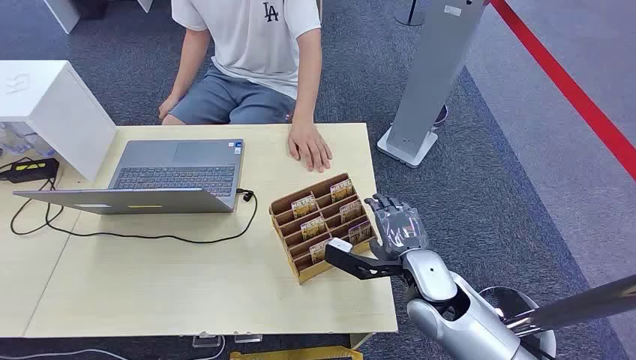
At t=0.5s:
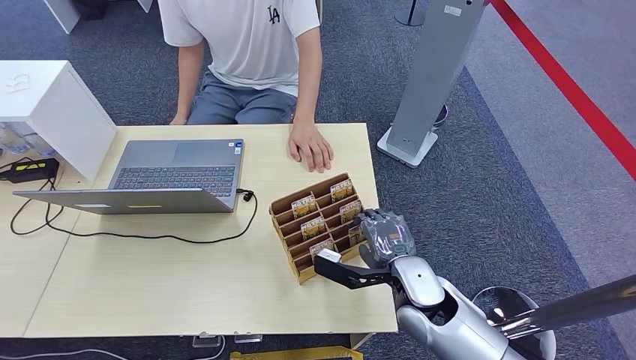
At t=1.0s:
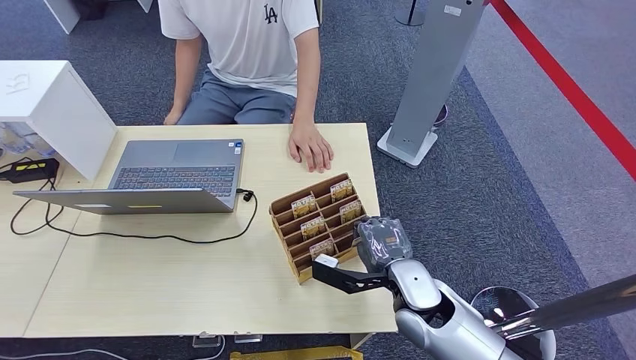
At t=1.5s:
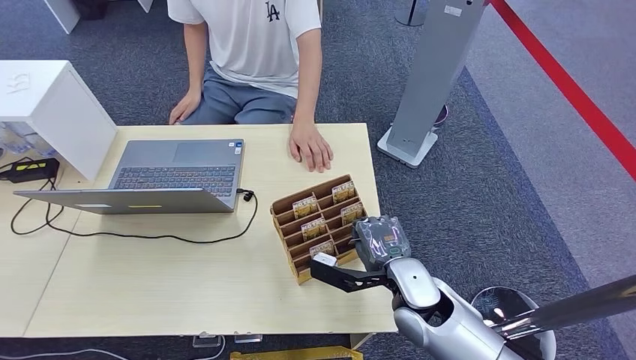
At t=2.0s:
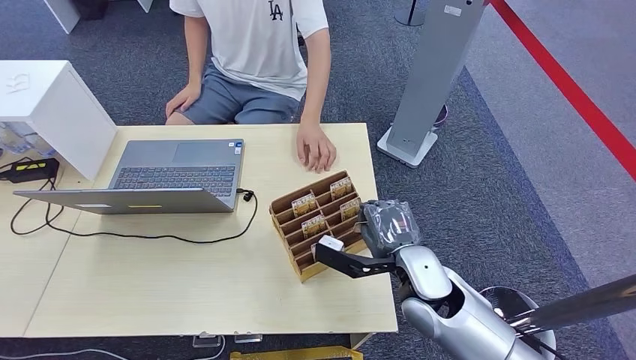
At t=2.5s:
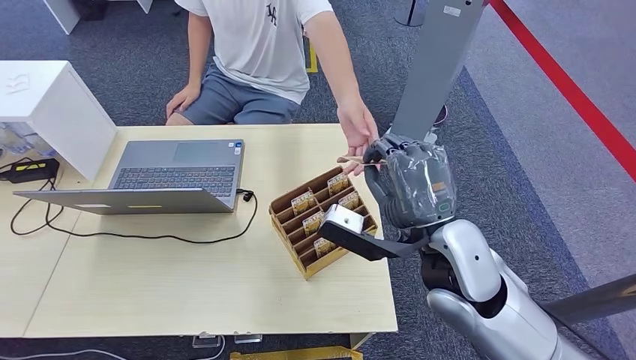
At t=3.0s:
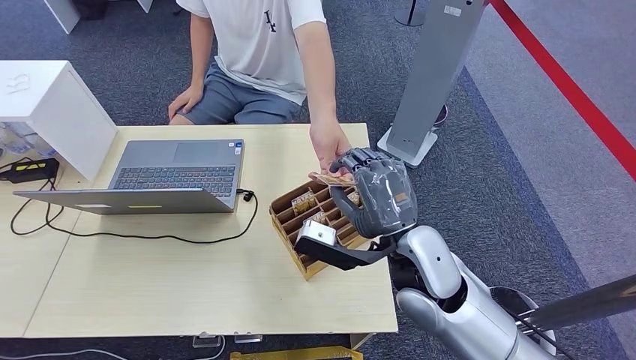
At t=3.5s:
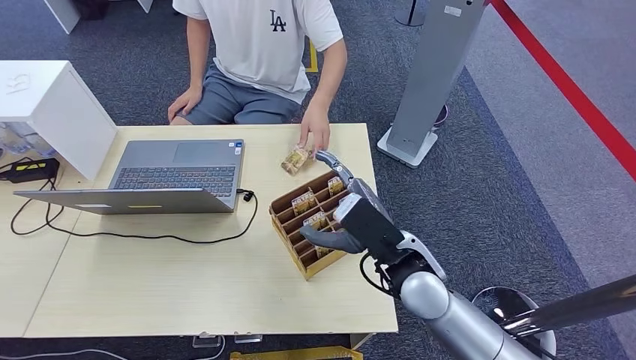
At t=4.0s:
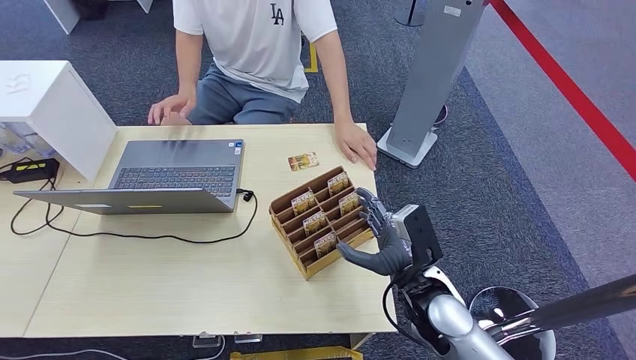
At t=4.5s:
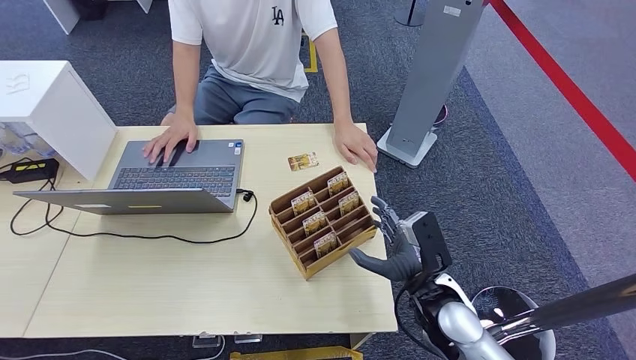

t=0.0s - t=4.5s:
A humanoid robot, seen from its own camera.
Step, t=0.0s - t=2.0s: Pick up the room card from the card holder.
Step, t=2.5s - t=4.5s: Hand the room card to the target.
t=2.0s - t=4.5s: The right hand travels upward and back again, roughly 10 cm each way.

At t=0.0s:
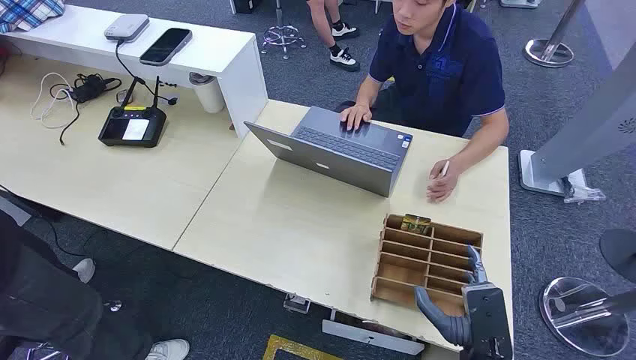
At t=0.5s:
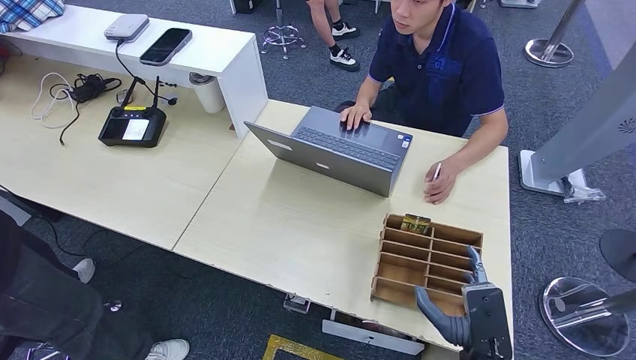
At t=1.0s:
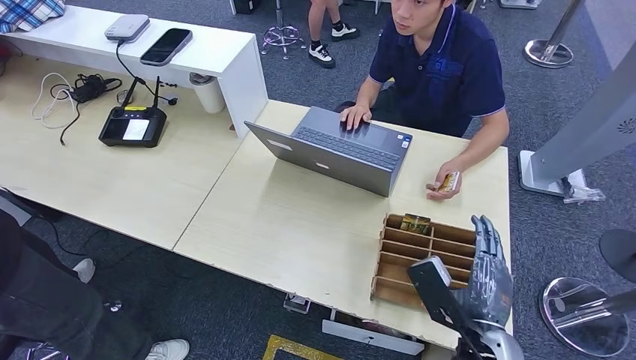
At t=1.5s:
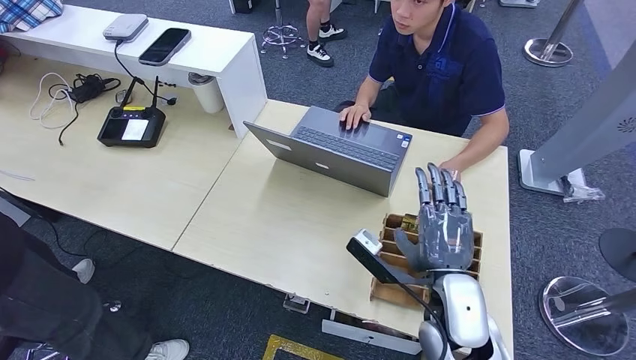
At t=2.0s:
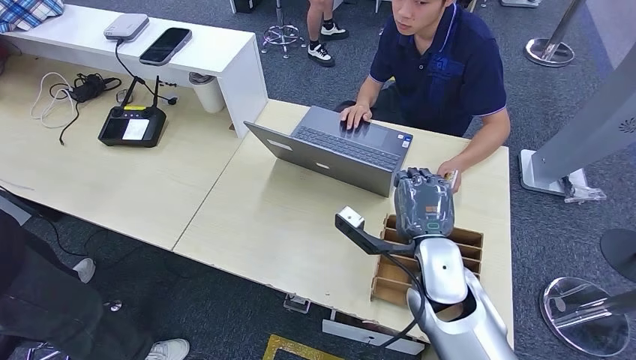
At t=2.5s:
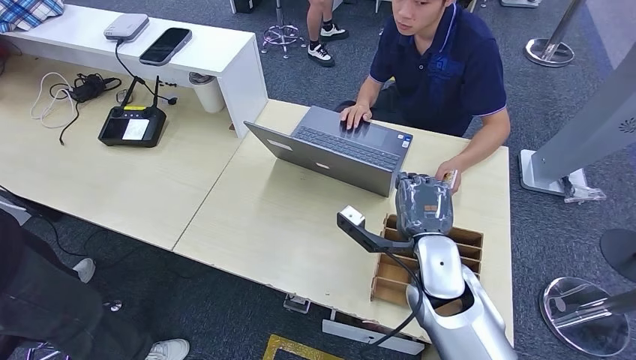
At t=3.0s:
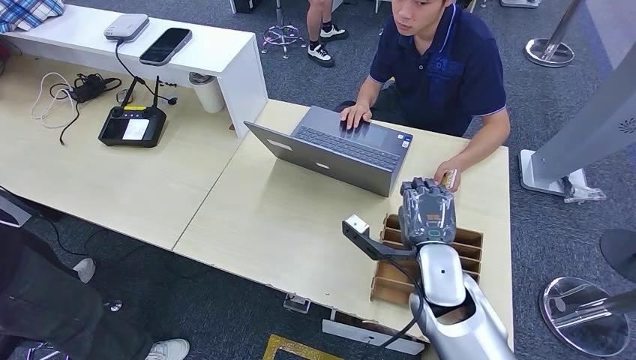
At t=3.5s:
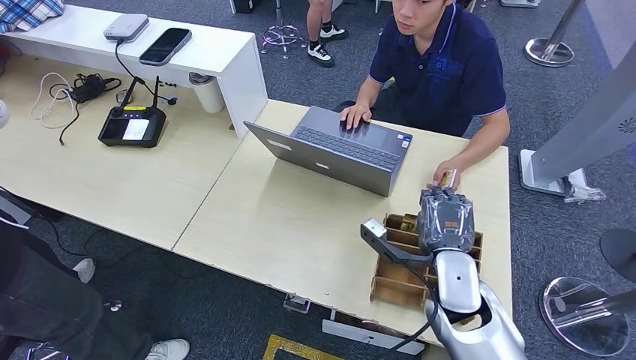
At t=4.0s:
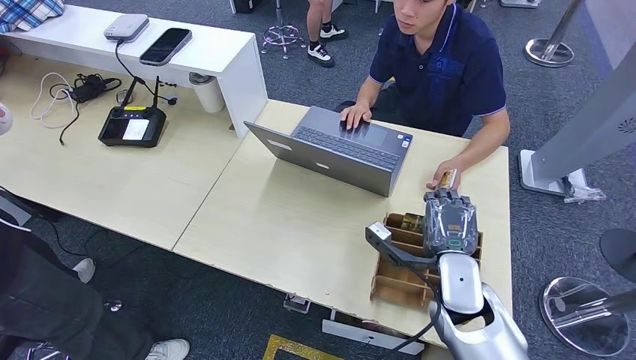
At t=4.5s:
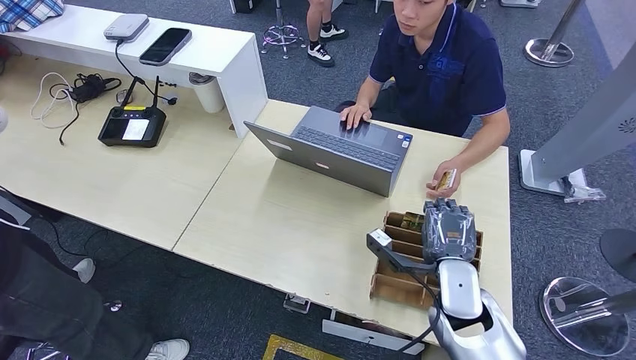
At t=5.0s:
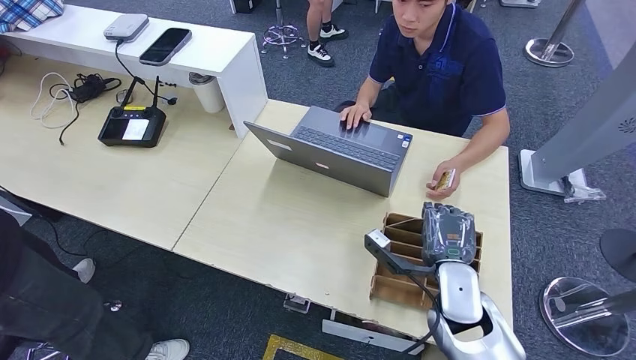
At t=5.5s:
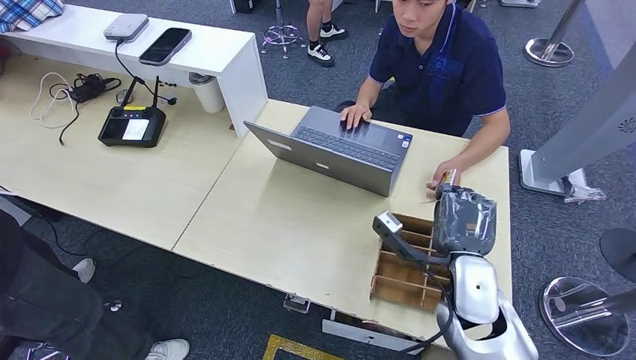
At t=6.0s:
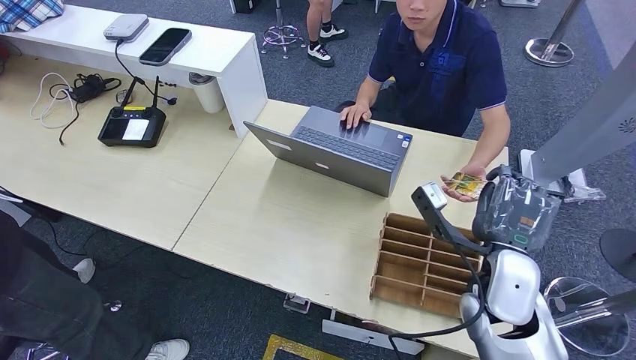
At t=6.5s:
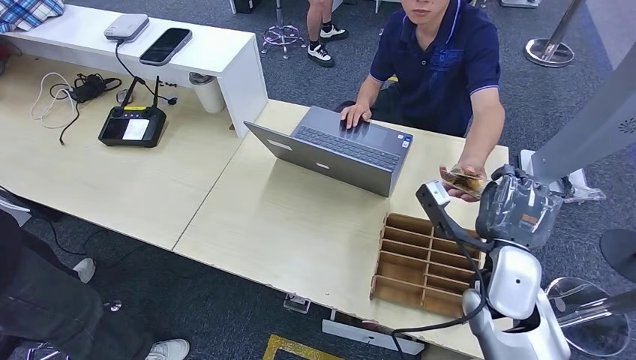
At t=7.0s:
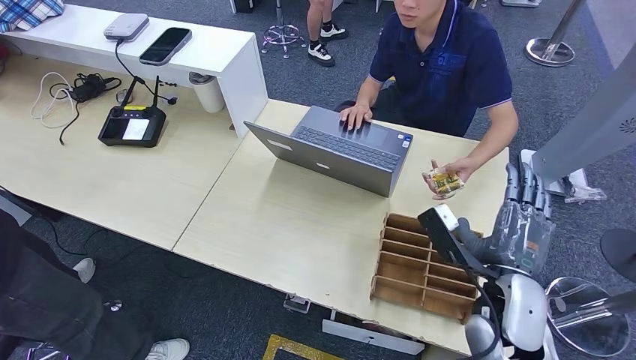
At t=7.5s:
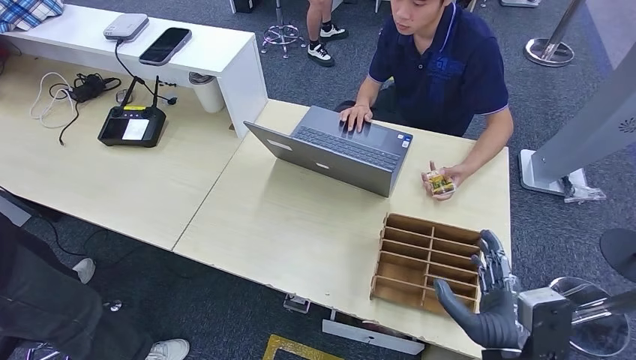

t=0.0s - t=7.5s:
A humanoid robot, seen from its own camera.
Step, t=0.0s - t=6.0s: Pick up the room card from the card holder.
Step, t=6.5s - t=7.5s: Hand the room card to the target.
t=2.0s - t=4.0s: The right hand shifts by roughly 5 cm.
t=4.0s - t=5.5s: The hands stay close to where they were, moving slightly.
t=5.5s - t=7.5s: The right hand travels backward and to the right by approximately 15 cm.
